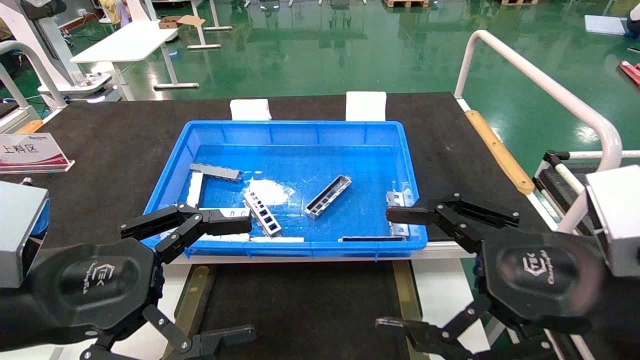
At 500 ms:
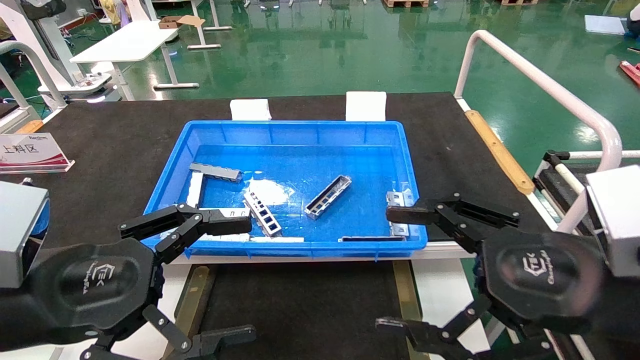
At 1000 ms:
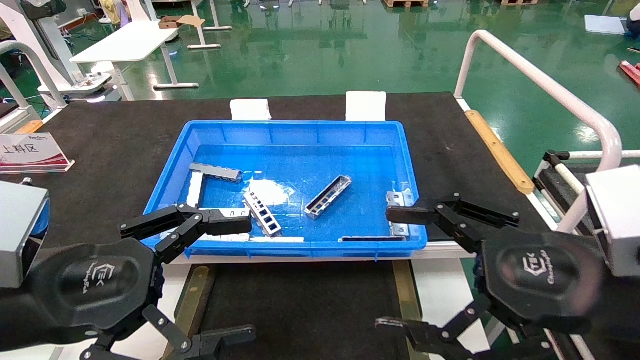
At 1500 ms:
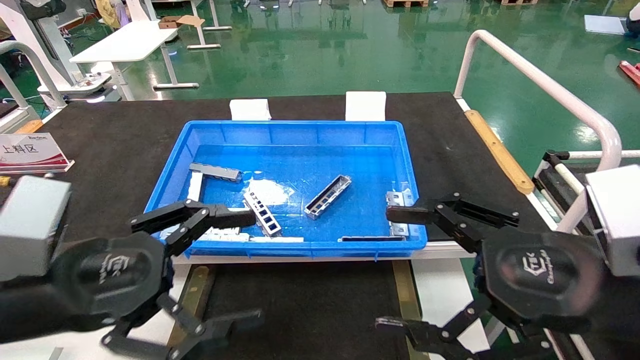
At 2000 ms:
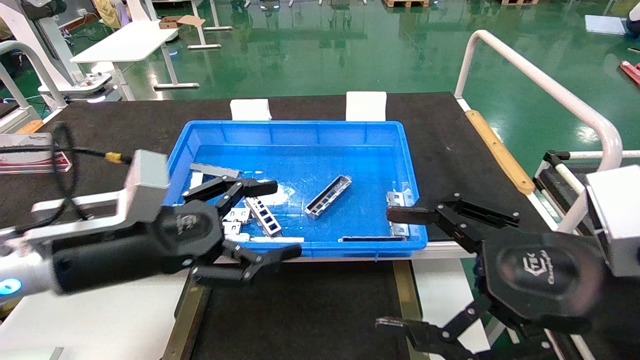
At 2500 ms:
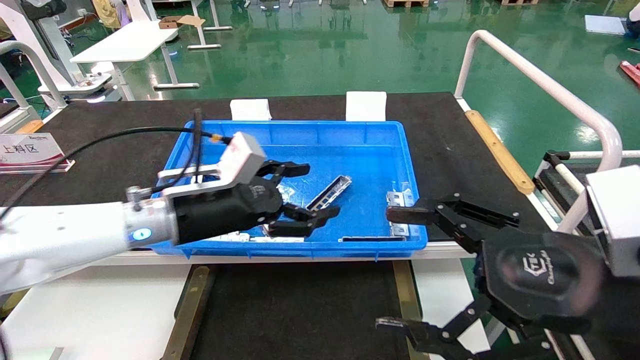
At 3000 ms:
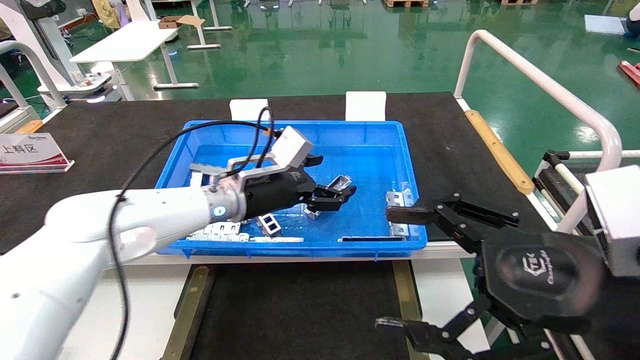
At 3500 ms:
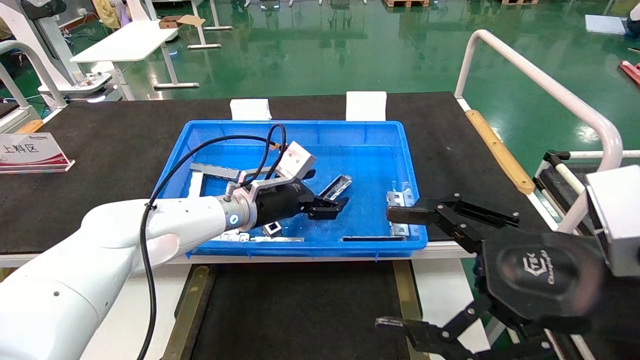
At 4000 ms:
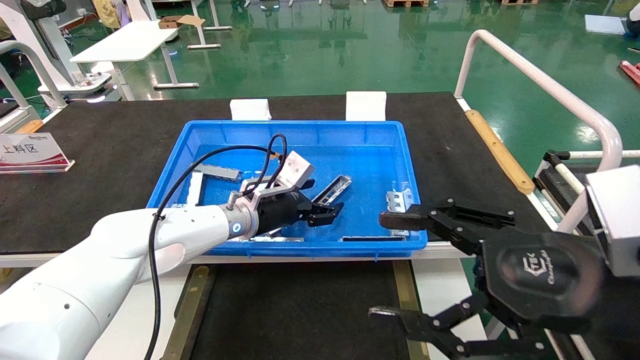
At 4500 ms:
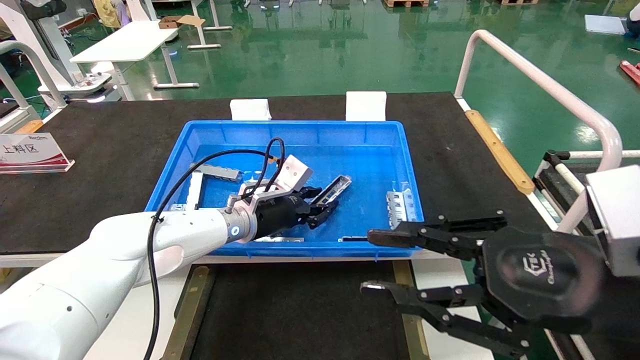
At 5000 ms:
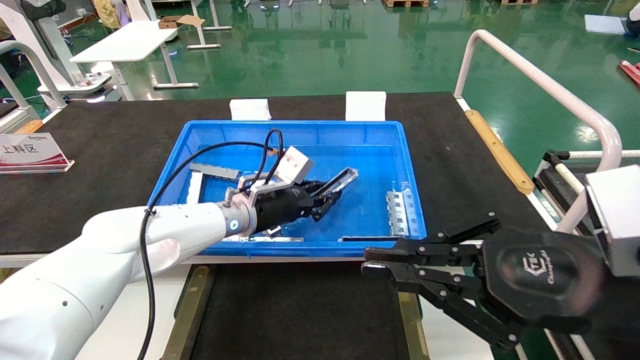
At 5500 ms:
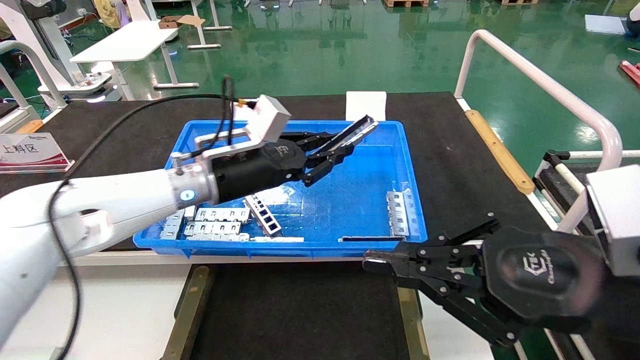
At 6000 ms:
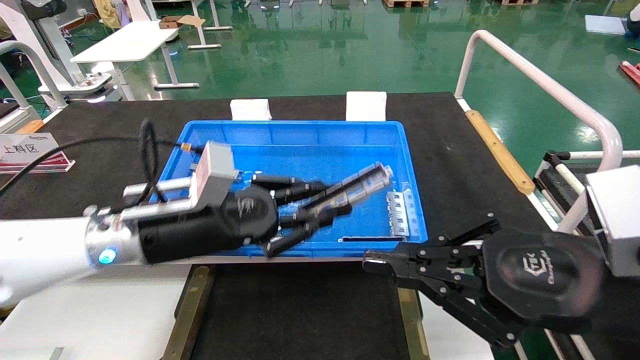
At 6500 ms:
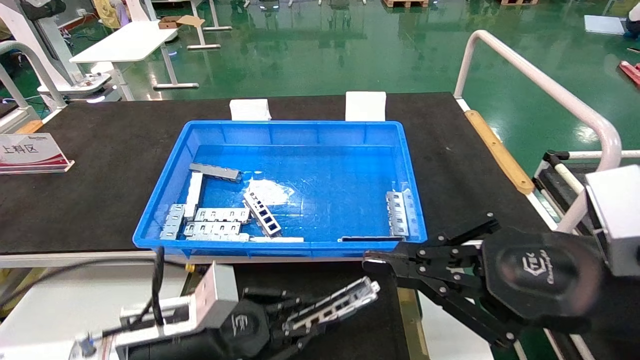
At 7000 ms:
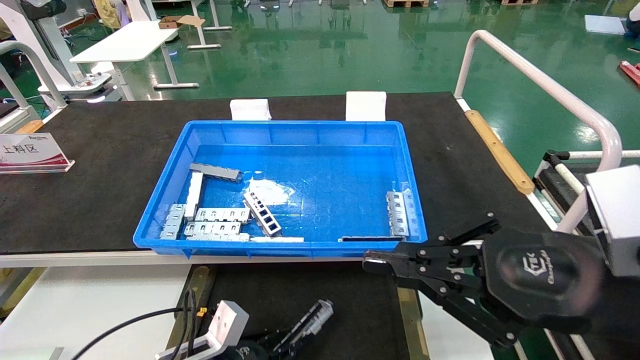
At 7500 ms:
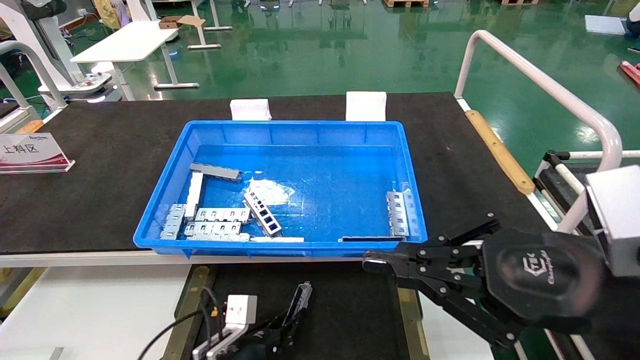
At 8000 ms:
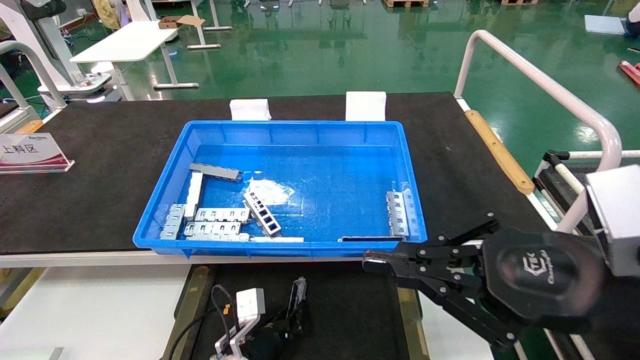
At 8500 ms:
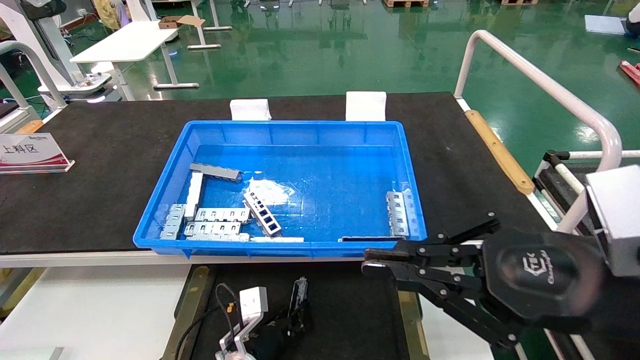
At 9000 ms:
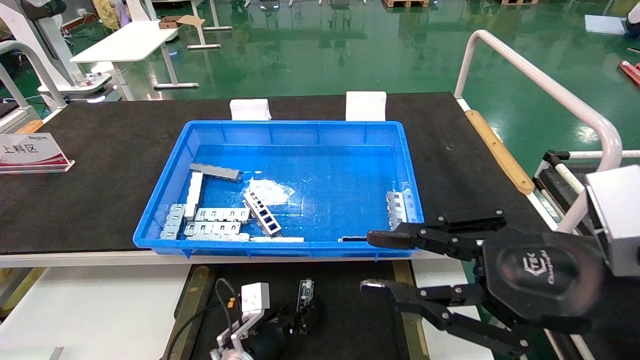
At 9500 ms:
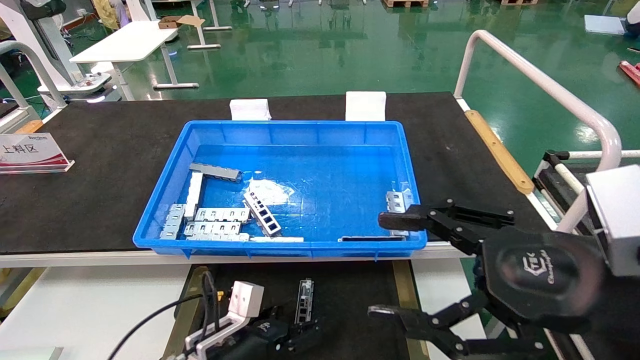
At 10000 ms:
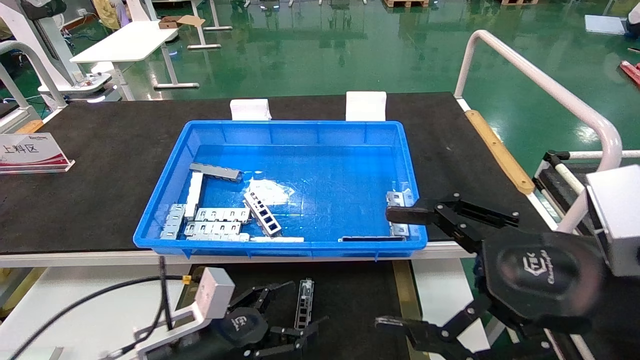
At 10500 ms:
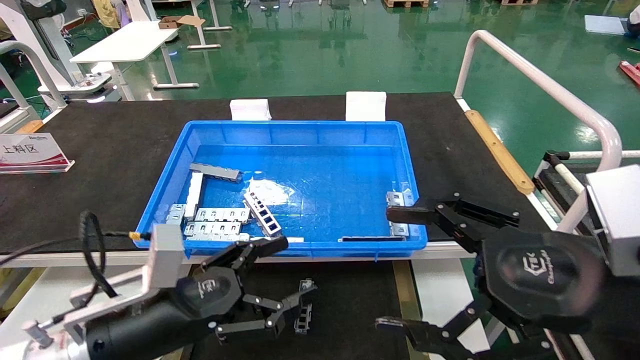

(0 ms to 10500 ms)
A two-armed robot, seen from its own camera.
Task of the whole recording: Grasp the part with one hand and place it on the black container.
Step, 2000 ms - 5000 ms: Pick up the front USB bracket from the feeding area.
Step, 5500 ms - 8500 ms: Place the front USB bracket into the box.
0 ms - 2000 ms: The left gripper shifts about 10 cm forward.
2000 ms - 4000 ms: The left gripper heads forward and to the right, covering approximately 25 cm.
4000 ms - 6500 ms: The left gripper travels backward by roughly 20 cm, and closes, while the right gripper closes up.
6500 ms - 8500 ms: The left gripper heads downward, forward and to the right, covering about 20 cm.
8500 ms - 10500 ms: The right gripper opens up; the left gripper is displaced upward, backward and to the left by about 25 cm, and opens.
